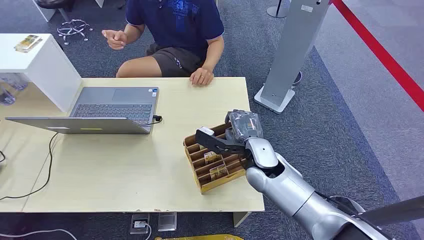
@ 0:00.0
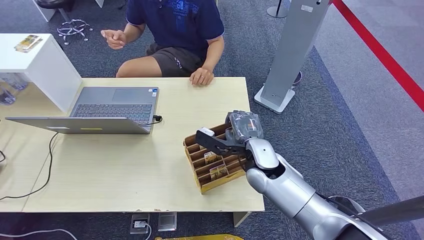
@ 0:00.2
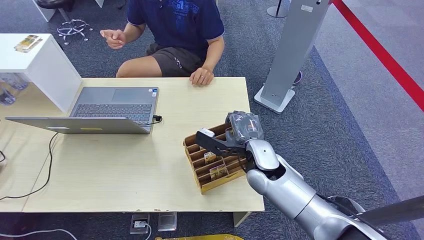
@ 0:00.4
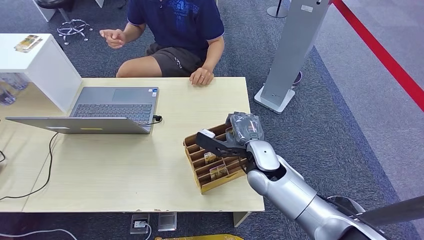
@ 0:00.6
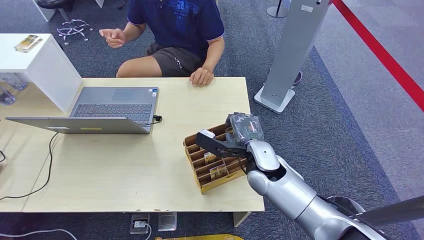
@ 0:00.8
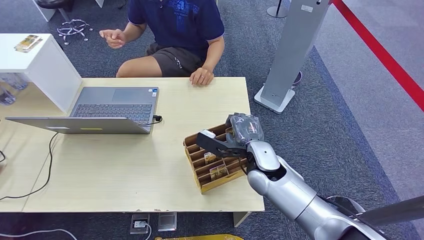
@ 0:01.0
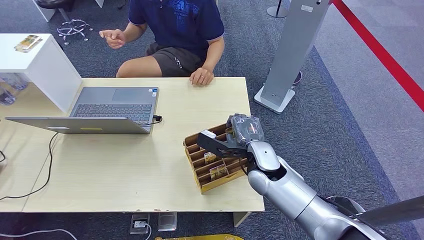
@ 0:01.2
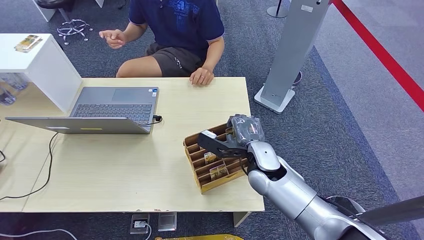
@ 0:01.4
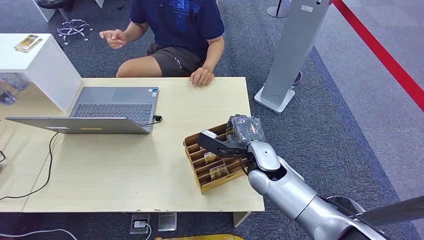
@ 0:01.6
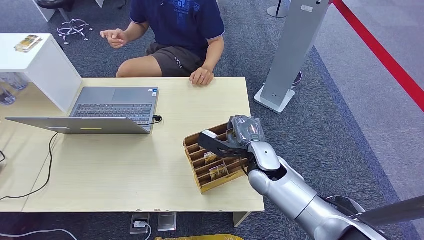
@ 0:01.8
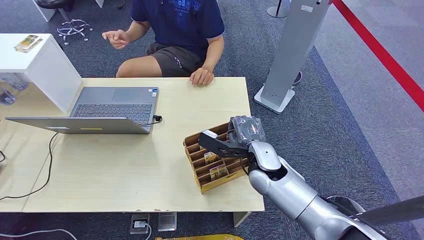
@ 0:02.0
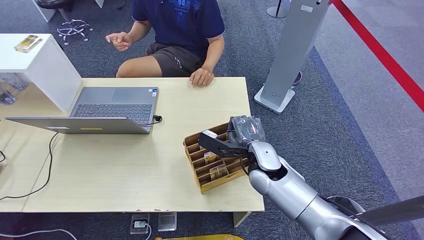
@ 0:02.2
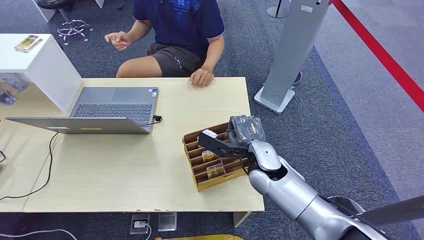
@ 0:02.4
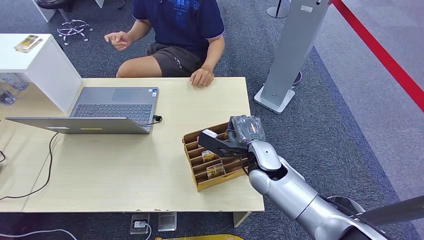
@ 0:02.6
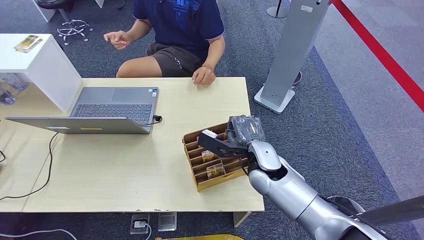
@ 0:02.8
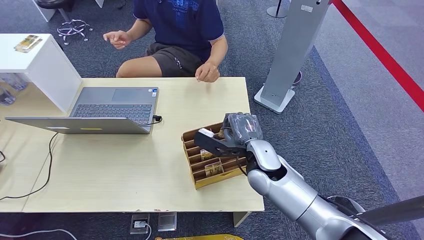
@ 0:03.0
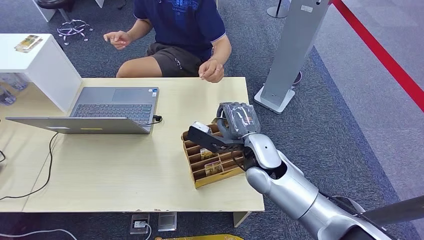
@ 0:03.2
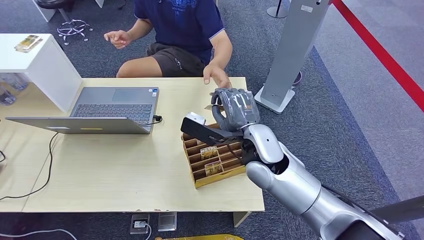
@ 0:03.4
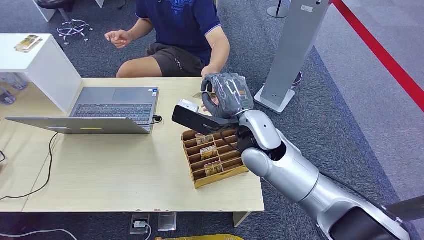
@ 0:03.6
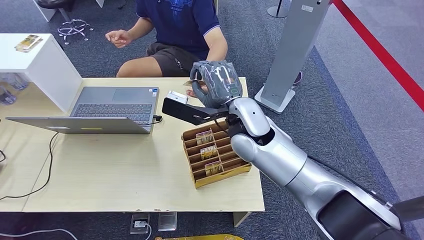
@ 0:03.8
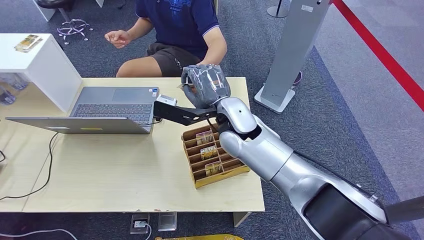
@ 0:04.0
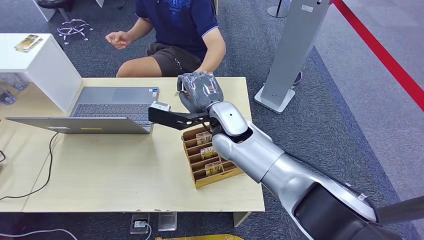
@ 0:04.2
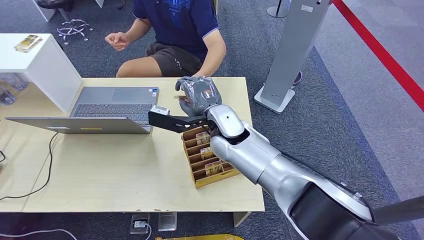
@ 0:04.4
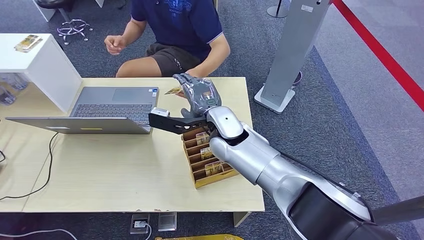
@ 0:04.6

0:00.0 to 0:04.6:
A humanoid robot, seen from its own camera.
Step, 0:00.0 to 0:03.0: Pick up the key card from the card box.
Step, 0:03.4 to 0:04.6: Hand the key card to the target.
0:01.6 to 0:03.0: There are only small adjustments of the hands.
0:03.0 to 0:04.6: The right hand moves to the left, upward and forward, about 15 cm.
